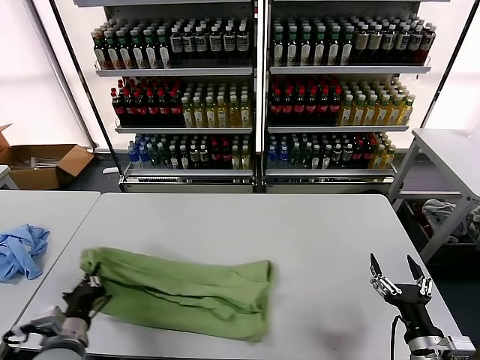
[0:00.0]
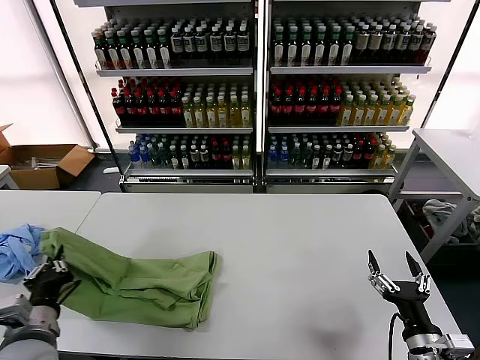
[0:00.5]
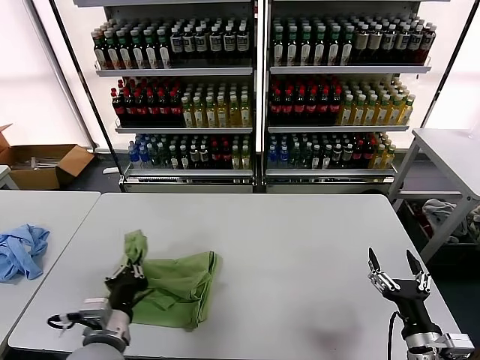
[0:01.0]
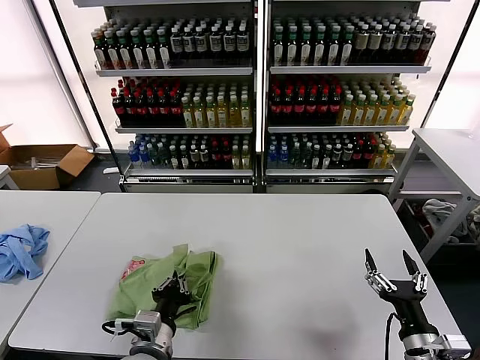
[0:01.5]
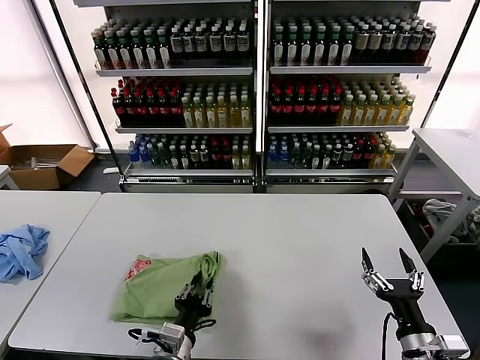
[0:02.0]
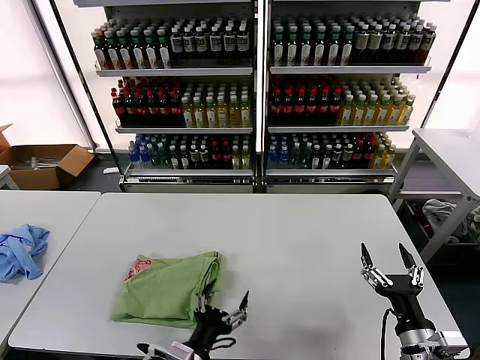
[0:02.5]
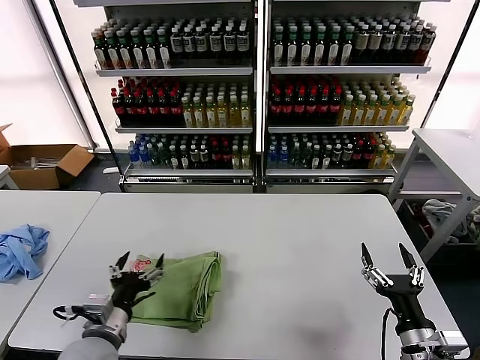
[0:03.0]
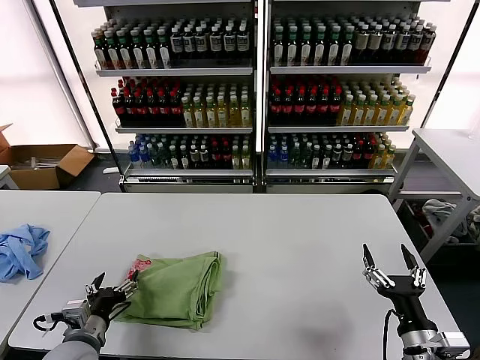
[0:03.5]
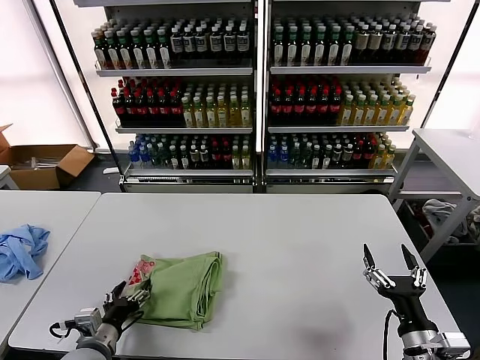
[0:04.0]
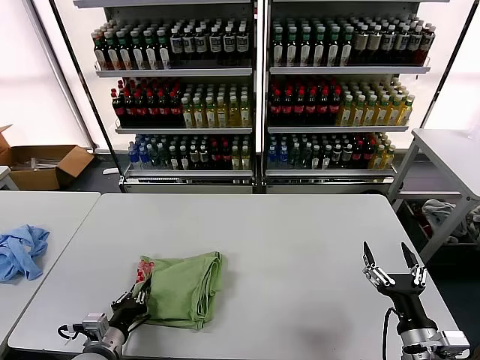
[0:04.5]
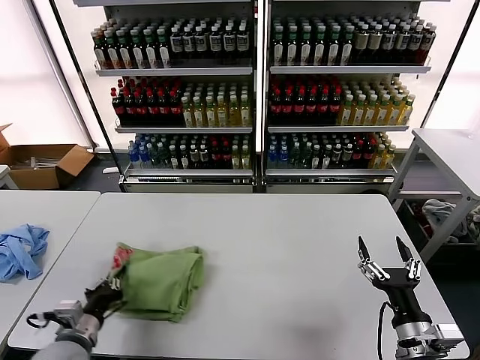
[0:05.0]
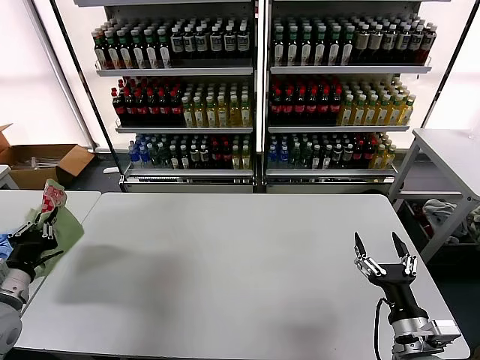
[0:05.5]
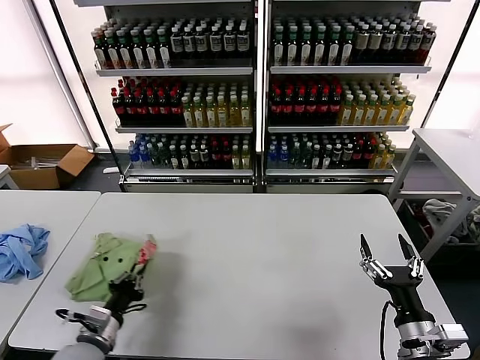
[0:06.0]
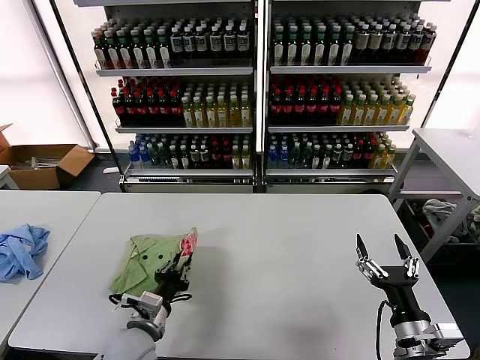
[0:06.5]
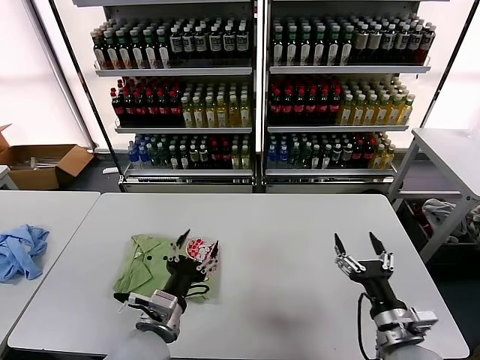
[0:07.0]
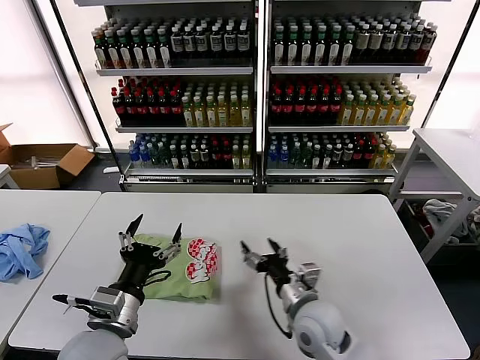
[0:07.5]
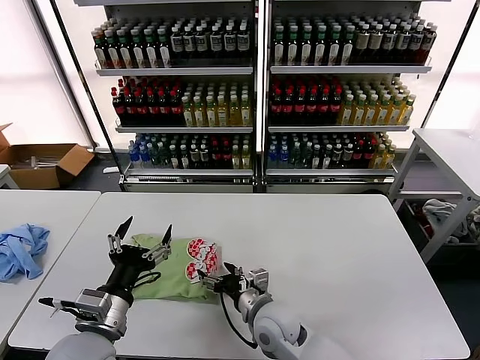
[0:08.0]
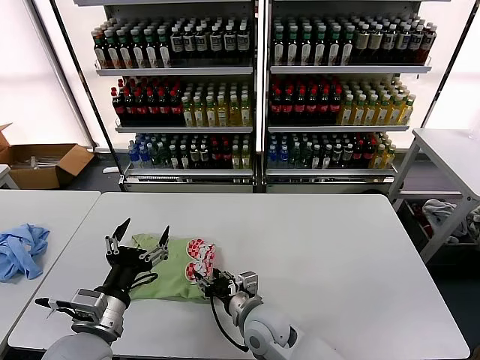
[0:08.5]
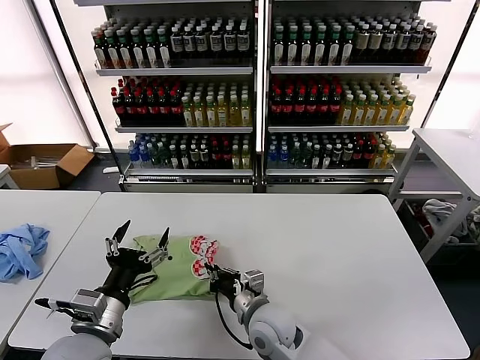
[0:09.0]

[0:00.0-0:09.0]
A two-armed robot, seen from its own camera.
Task of the whole recording: fold and organize the clothes.
Step, 0:00.0 to 0:02.0: use the left gripper to drag the left edge of the fabric to the left and folds it over the right edge.
Step, 0:02.5 to 0:06.5: Flip the folded clothes over with left gripper.
0:00.0 to 0:02.0: The left gripper travels to the right by roughly 15 cm.
0:02.0 to 0:04.5: The left gripper shifts some 15 cm to the left, and opens and closes again.
0:04.5 to 0:07.0: The left gripper travels to the right and upward by approximately 15 cm, and opens its fingers.
0:07.0 to 0:09.0: The left gripper goes about 10 cm to the left and upward, while the right gripper travels to the left and forward by about 25 cm, and closes.

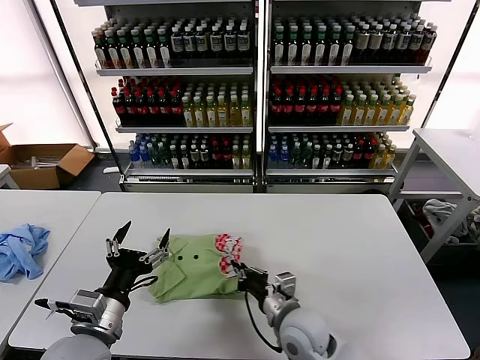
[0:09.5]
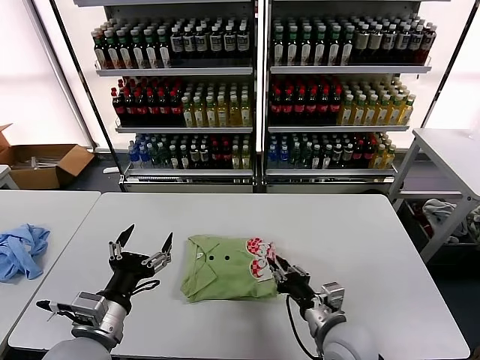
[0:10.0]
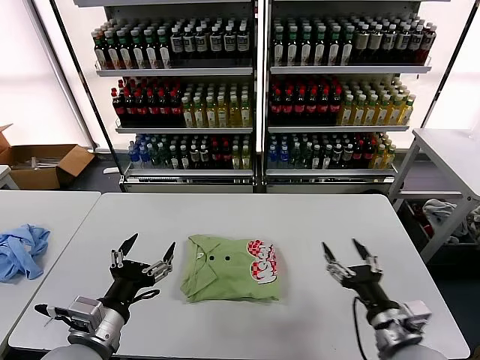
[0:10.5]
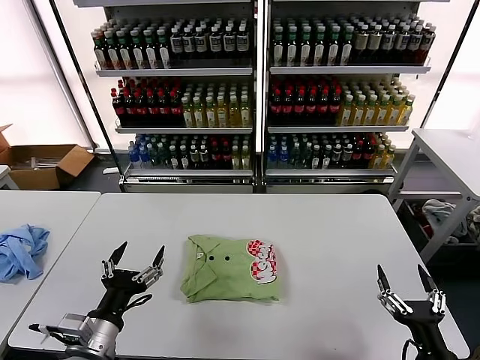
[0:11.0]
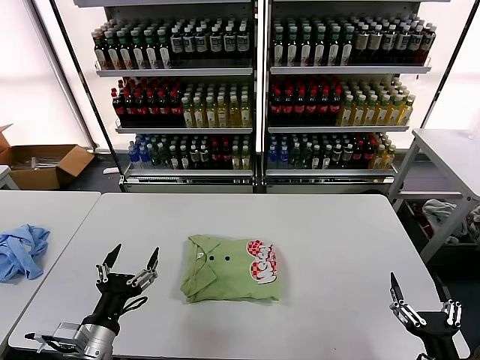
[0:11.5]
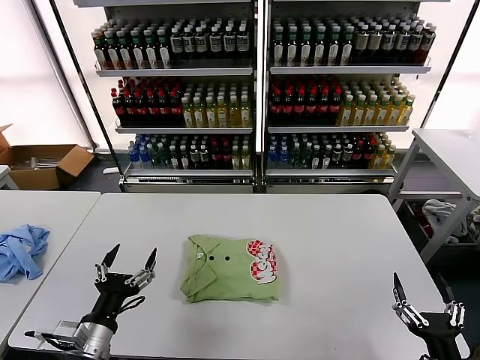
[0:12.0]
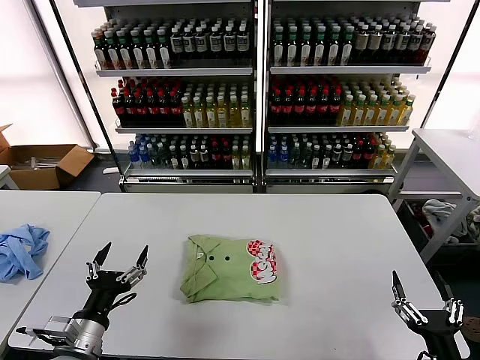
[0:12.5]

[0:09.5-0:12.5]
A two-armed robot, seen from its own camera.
Task of the whole recording: fold and organize the clothes.
0:09.5 to 0:11.0: The right gripper heads to the right and backward, covering about 30 cm, and opens its fingers.
0:11.0 to 0:12.5: The grippers stay close to where they were, moving slightly.
